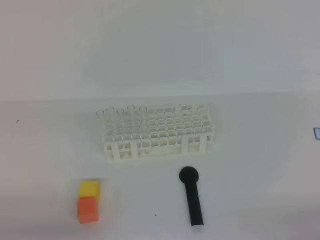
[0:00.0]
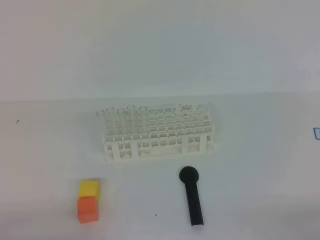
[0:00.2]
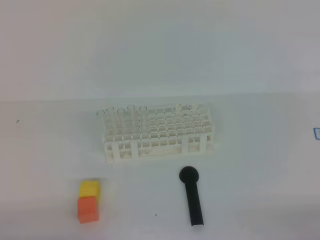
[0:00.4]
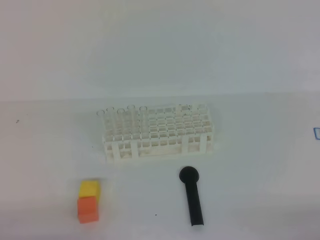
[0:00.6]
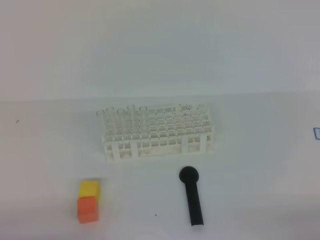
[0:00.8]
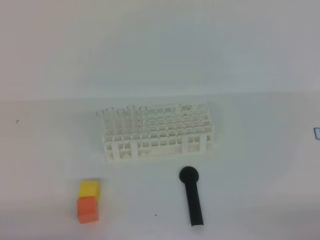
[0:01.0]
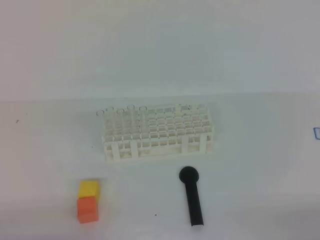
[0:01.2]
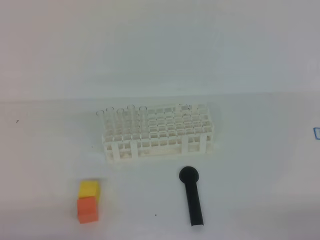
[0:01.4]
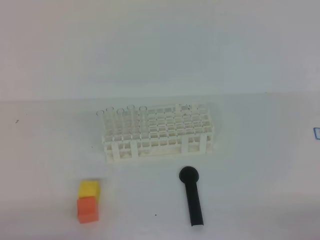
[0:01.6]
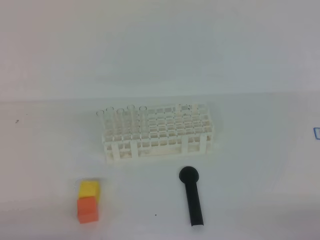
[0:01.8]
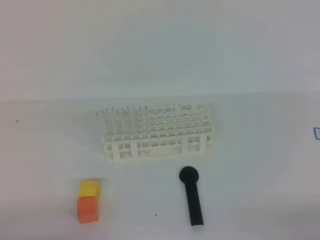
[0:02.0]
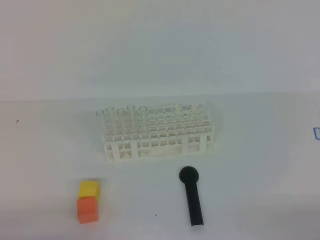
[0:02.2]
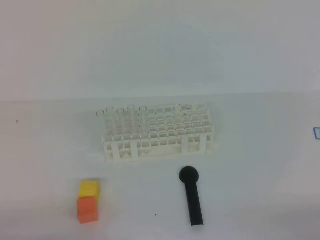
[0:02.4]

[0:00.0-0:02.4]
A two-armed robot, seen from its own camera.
0:01.2 to 0:02.4: Both grippers stay about where they are.
